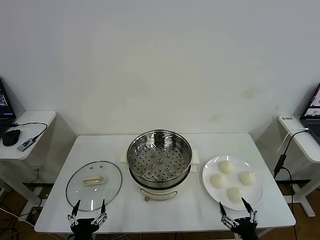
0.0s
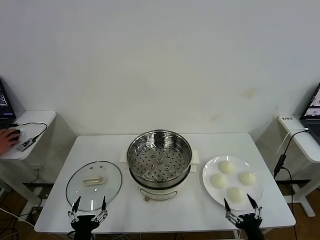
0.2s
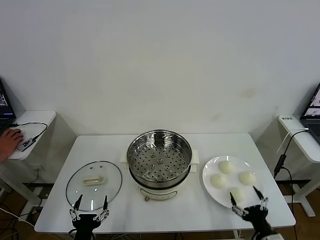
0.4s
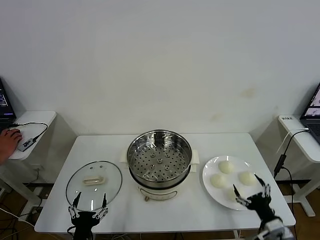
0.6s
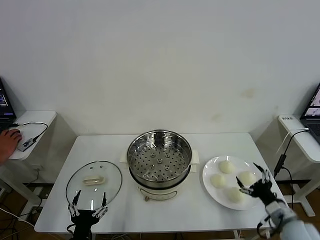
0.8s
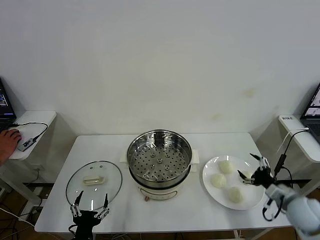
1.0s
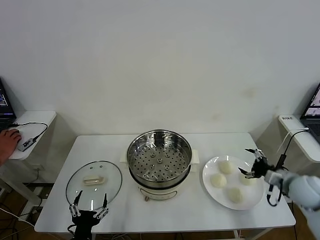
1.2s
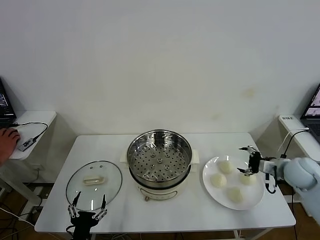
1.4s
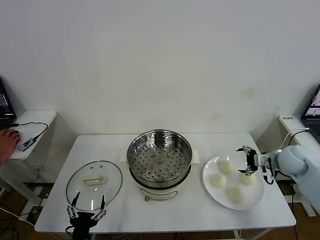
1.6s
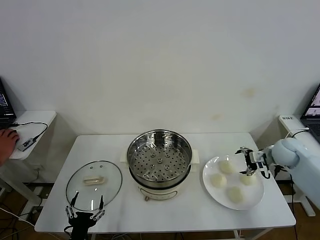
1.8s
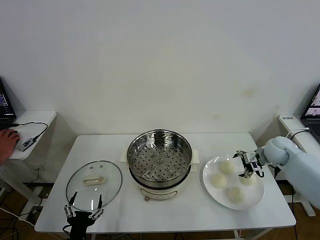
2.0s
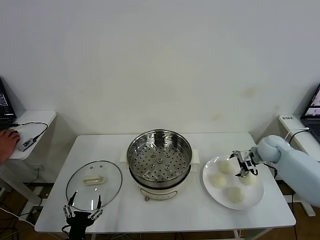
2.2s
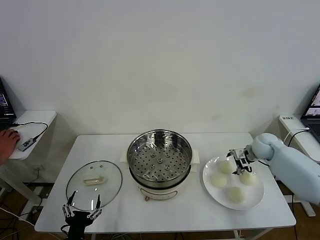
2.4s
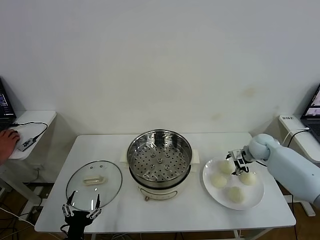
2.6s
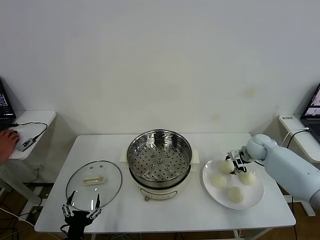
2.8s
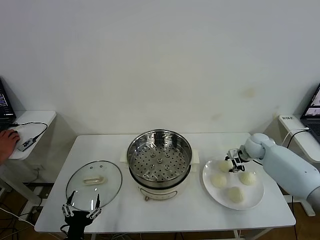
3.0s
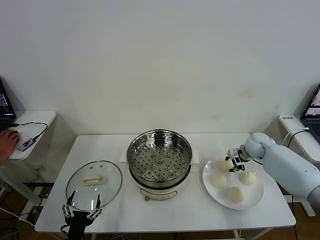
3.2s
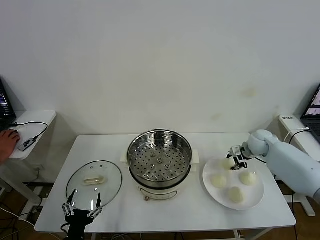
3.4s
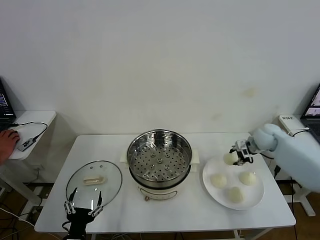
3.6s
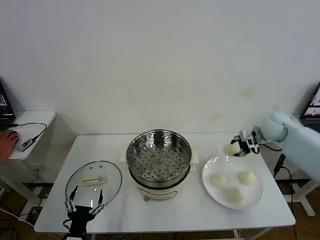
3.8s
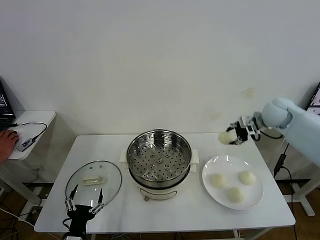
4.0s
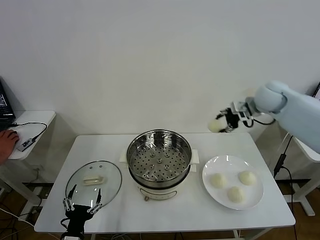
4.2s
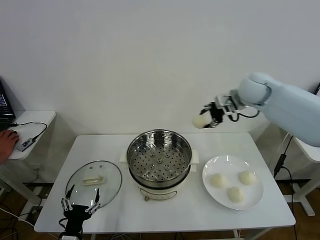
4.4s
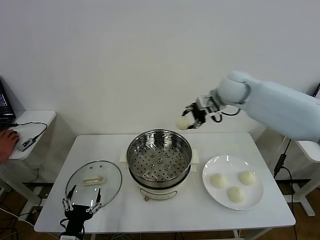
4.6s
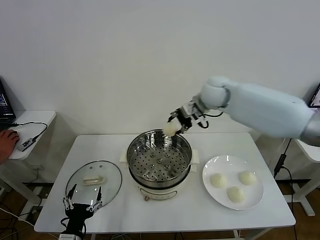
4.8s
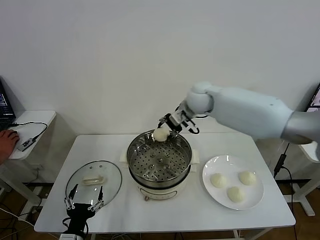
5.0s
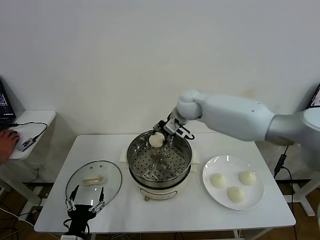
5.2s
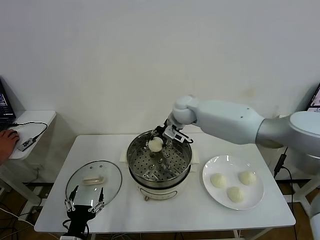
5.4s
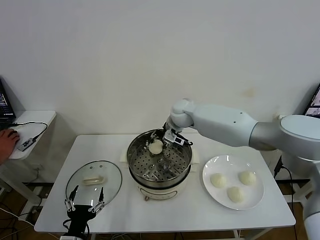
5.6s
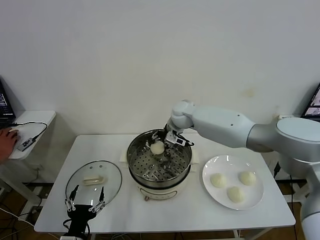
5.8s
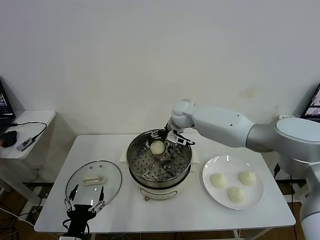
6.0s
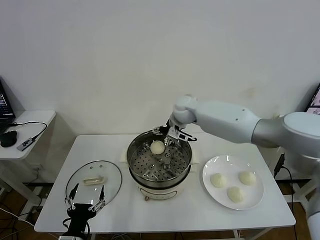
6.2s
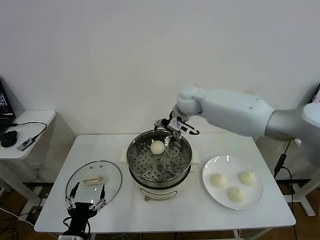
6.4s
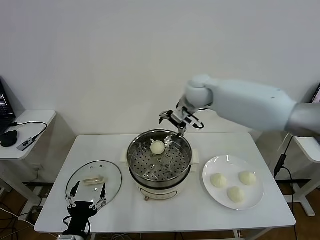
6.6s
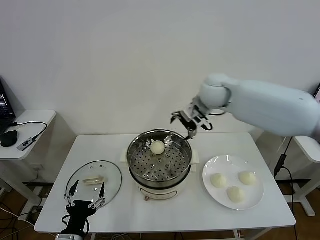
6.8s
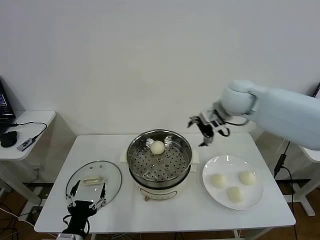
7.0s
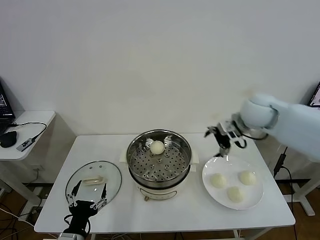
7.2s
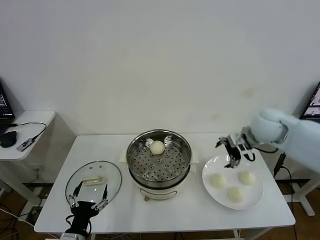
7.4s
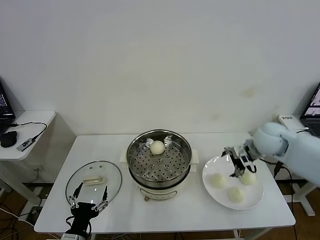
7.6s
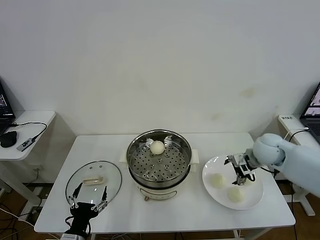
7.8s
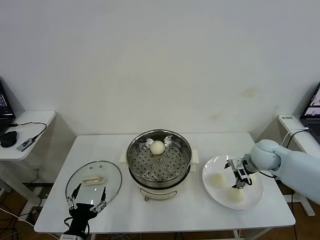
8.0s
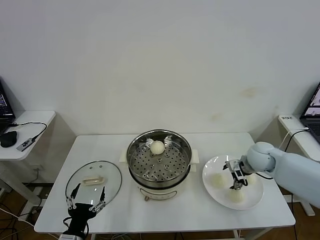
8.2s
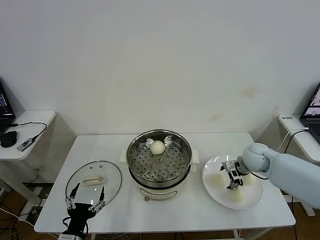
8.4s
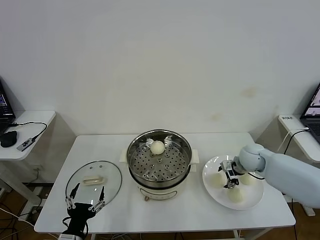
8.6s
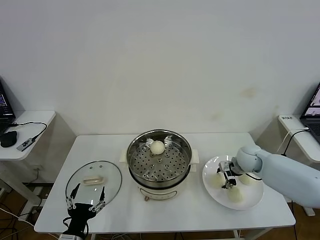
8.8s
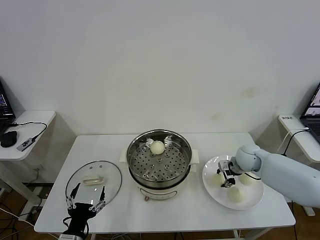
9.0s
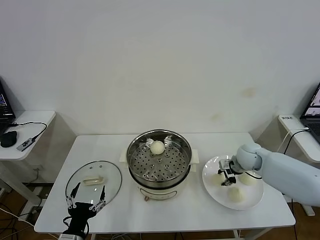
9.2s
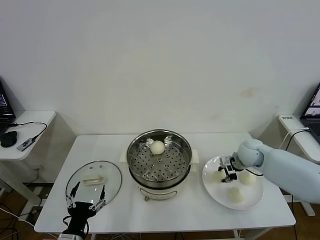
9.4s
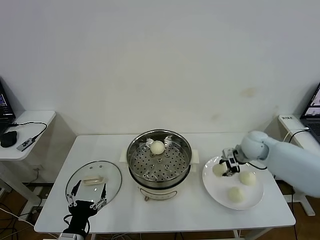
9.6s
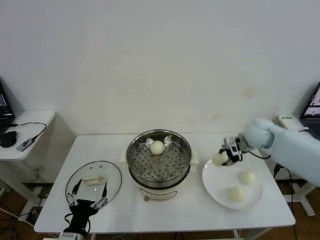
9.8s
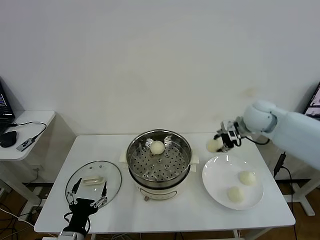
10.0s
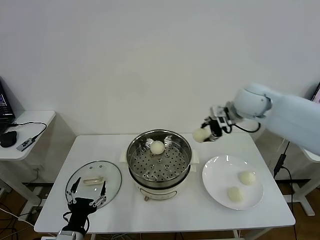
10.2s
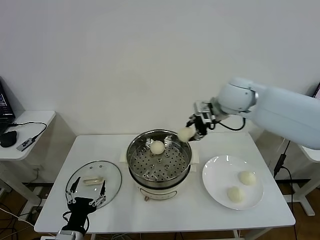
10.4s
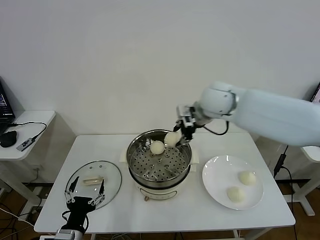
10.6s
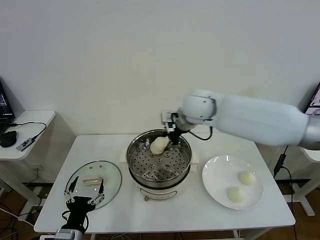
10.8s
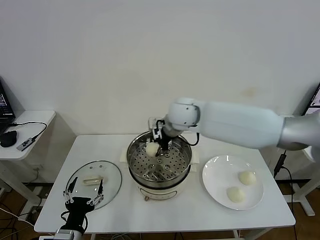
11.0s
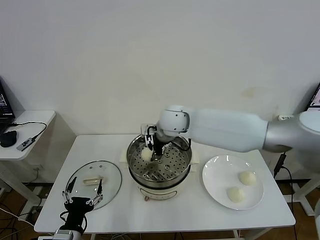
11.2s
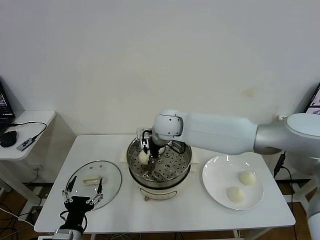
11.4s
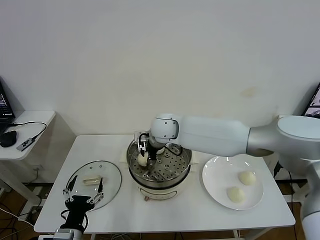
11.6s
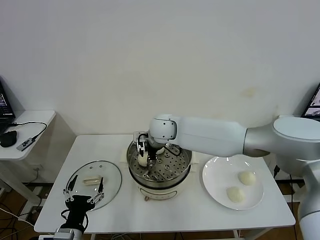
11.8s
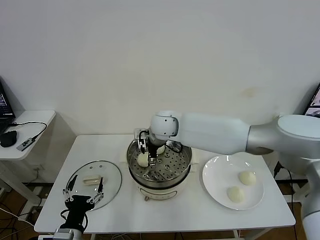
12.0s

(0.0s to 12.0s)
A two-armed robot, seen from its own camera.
Task of the whole recording: take steamed baozi put them in steamer then cover it.
Step, 0.0s - 2.8s: Grasp the baozi in the plate with right gripper.
Step, 3.2s - 5.8s: Place the baozi on the steamer with right gripper.
Step, 6.0s - 9.0s: Grasp the baozi in the plate with right gripper.
Step, 9.2s - 11.8s: Place the baozi on the steamer with right gripper.
1.6s - 3.0s: The right gripper is displaced forward, to the left and downward by about 10 cm, and closes.
3.0s - 4.4s: The right gripper goes roughly 30 cm upward and to the left.
4.4s - 6.0s: The right gripper shifts roughly 20 cm to the left and downward, and opens.
6.0s - 7.6s: The right gripper heads to the right and backward, covering approximately 30 cm.
7.6s - 9.0s: The right gripper is displaced downward by some 10 cm, and closes its fingers.
9.0s - 10.4s: The right gripper goes approximately 30 cm upward and to the left.
10.4s - 12.0s: The right gripper is displaced to the left and downward by about 20 cm, and opens its fingers.

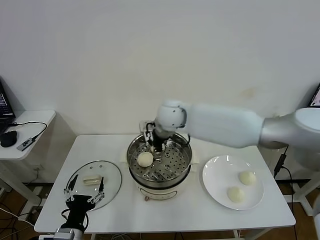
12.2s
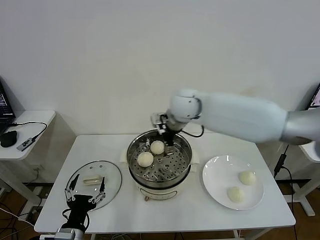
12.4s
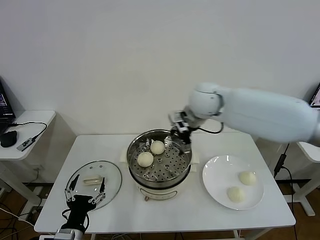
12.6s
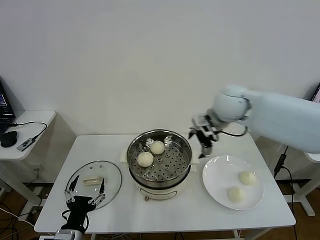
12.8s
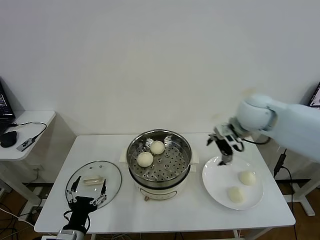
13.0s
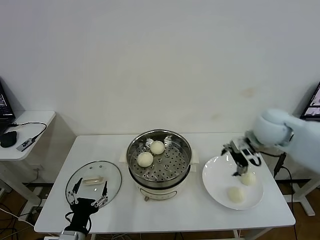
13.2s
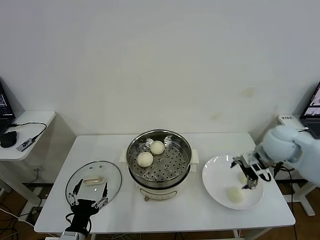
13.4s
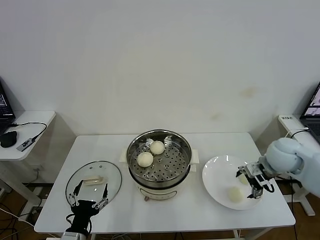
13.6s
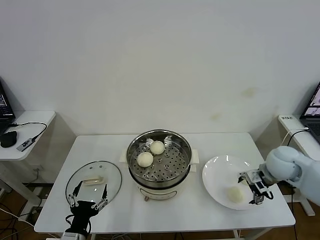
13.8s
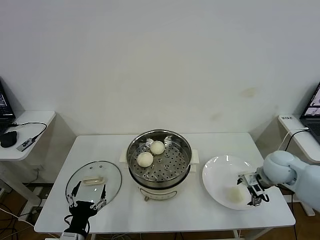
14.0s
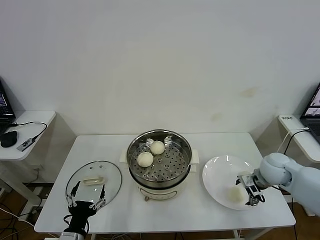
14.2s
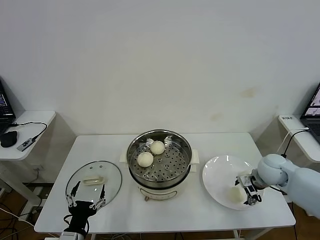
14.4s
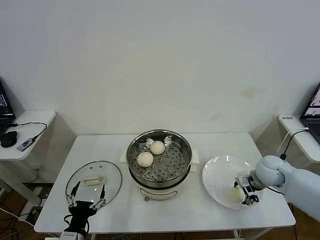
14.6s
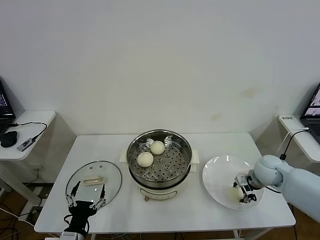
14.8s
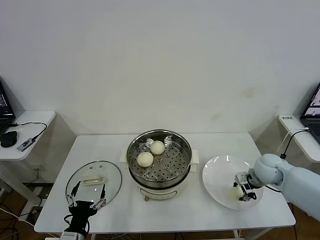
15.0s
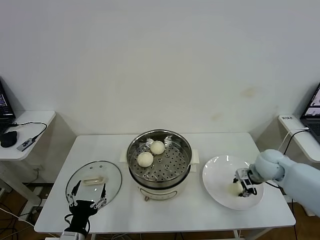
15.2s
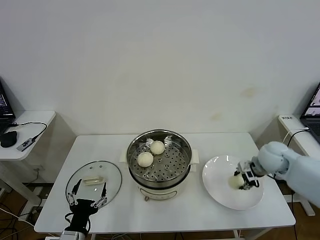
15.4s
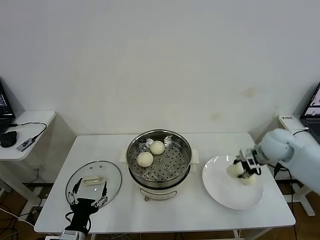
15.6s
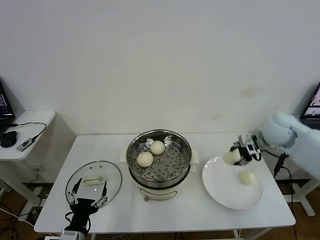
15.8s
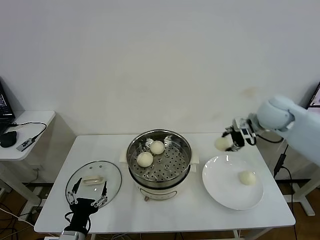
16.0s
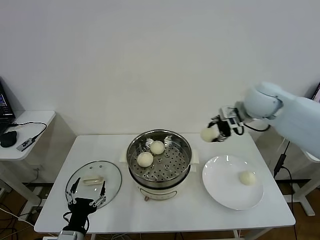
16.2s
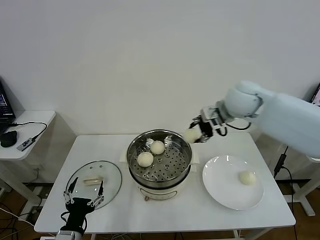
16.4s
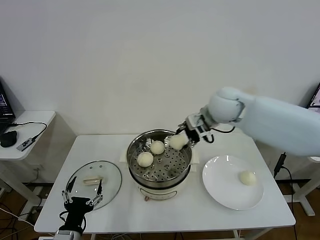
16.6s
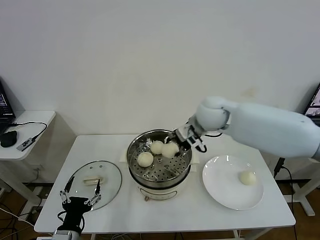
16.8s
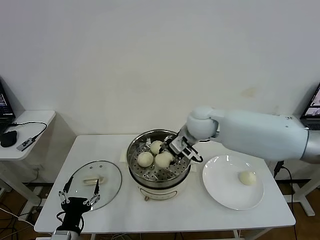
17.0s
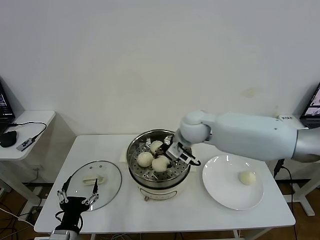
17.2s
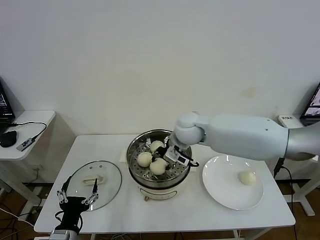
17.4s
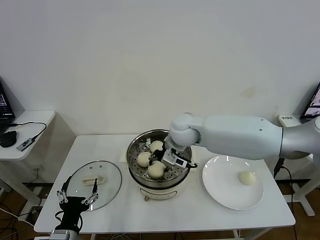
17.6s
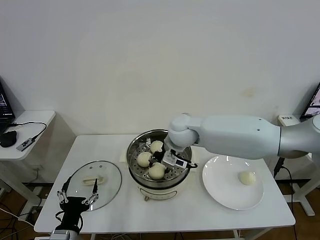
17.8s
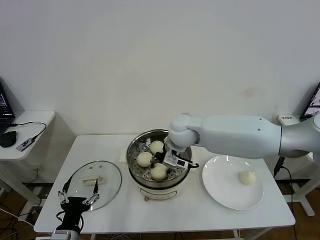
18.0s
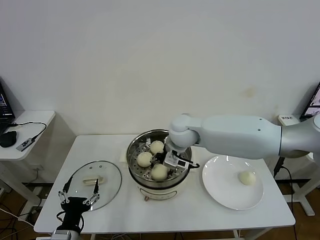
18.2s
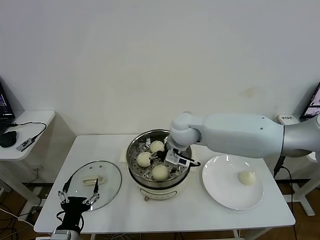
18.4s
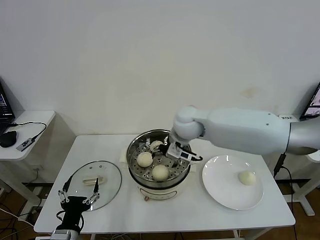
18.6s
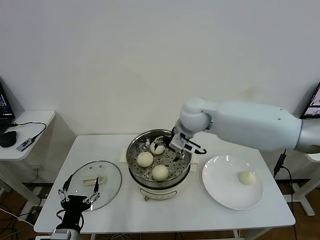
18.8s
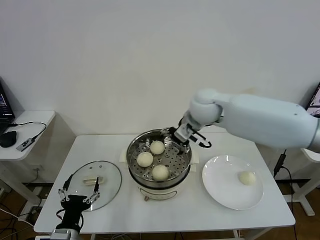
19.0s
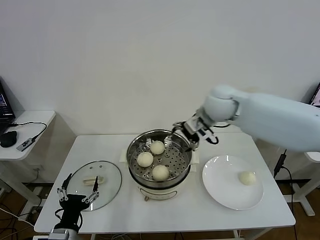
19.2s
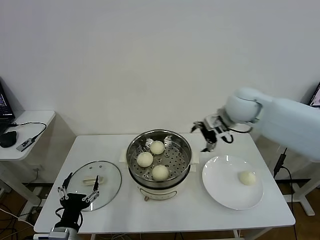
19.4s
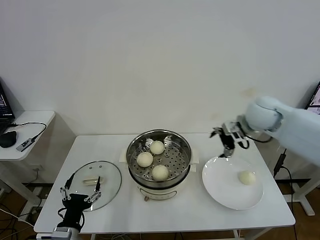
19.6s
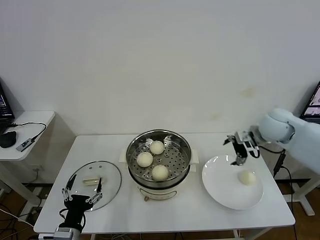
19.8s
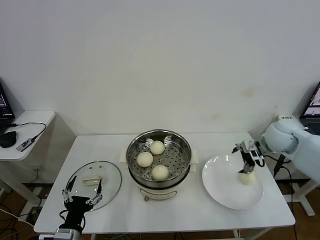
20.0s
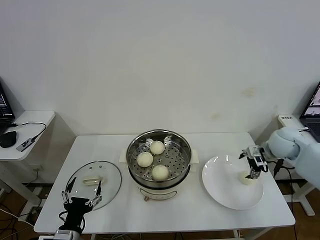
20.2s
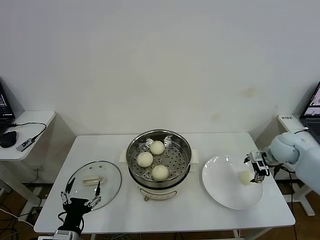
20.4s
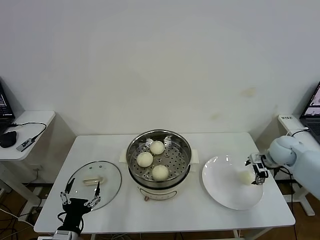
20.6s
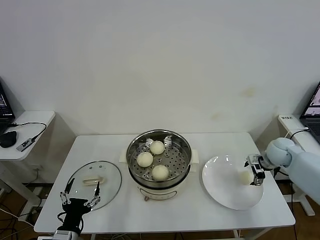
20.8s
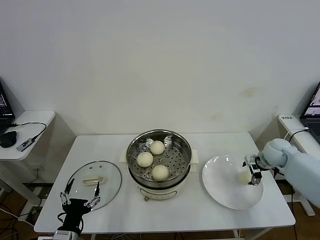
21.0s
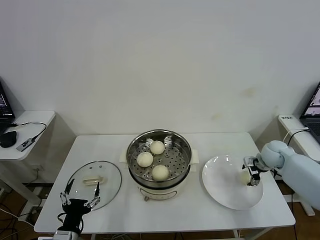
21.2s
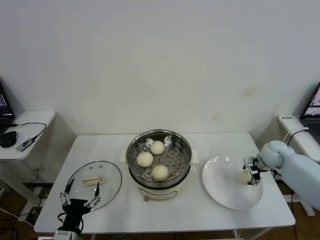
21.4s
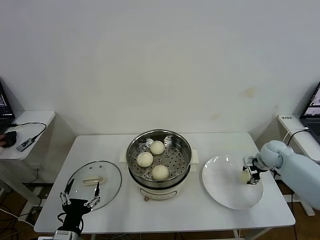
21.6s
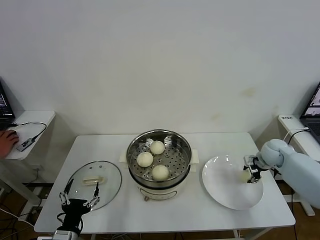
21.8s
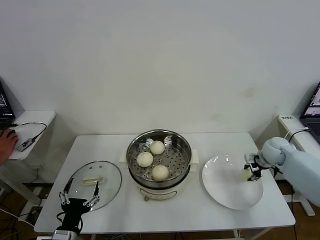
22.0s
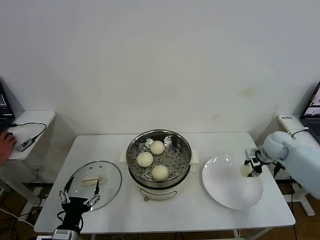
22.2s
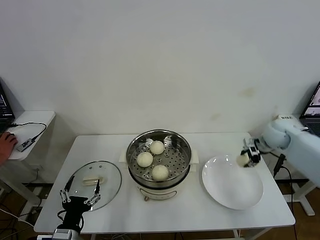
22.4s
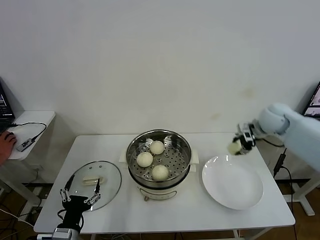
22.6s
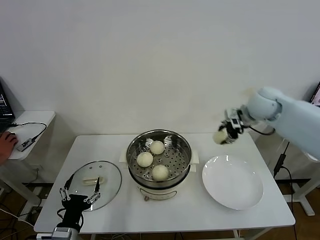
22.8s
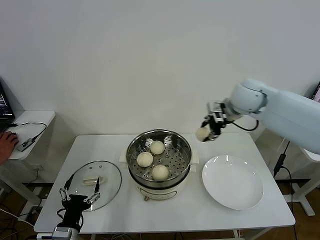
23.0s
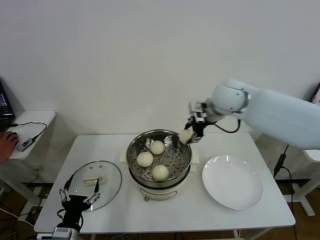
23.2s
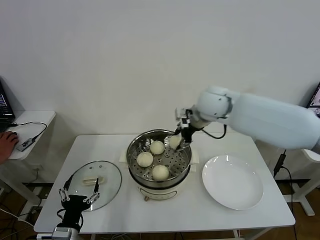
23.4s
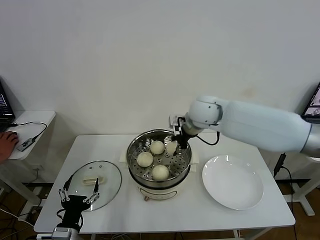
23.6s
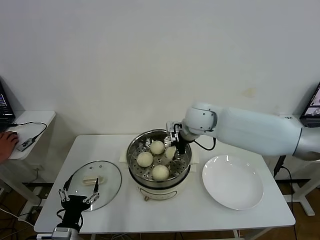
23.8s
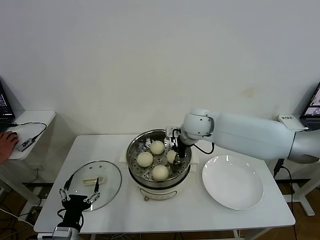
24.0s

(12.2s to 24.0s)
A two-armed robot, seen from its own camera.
Task of the whole recording: take steamed baozi put them in steamer then cover it.
Step, 12.2s - 14.8s: Grasp the baozi in the plate with right gripper.
Step, 15.0s - 18.4s: Place the baozi on the steamer with right gripper.
Step, 18.6s - 21.8s: Grasp the baozi in the plate with right gripper.
12.2s - 13.6s: The right gripper is displaced to the right by some 30 cm.
13.6s - 15.2s: The right gripper is displaced downward by approximately 5 cm, and closes up.
15.2s - 16.6s: The right gripper shifts about 25 cm to the left and upward.
16.6s - 18.2s: The right gripper travels to the left and downward by about 10 cm, and opens its fingers.
18.2s - 19.6s: The right gripper goes roughly 25 cm to the right.
19.6s - 21.0s: The right gripper shifts some 20 cm downward and to the right.
21.0s - 22.6s: The right gripper travels upward and to the left by approximately 15 cm, and closes its fingers.
22.6s - 24.0s: The right gripper shifts roughly 25 cm to the left.
